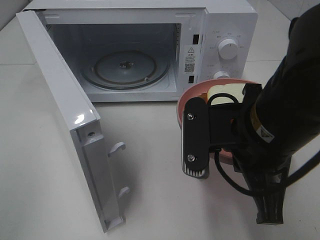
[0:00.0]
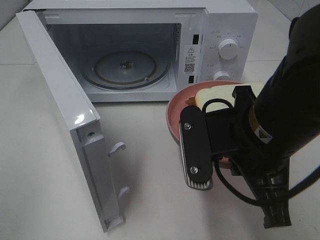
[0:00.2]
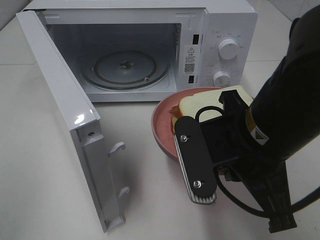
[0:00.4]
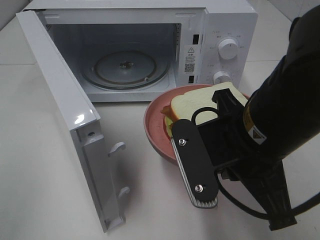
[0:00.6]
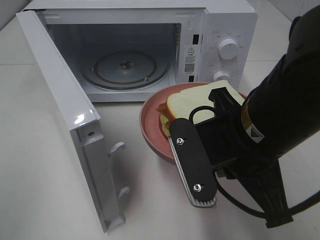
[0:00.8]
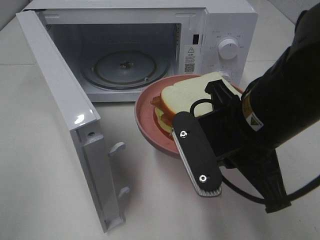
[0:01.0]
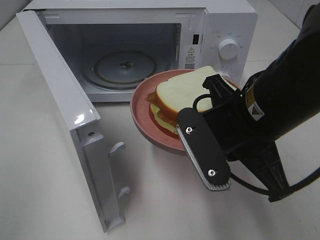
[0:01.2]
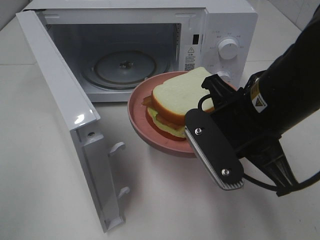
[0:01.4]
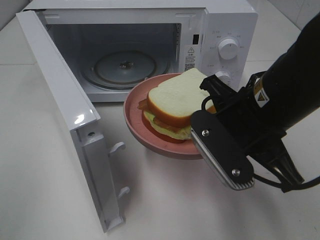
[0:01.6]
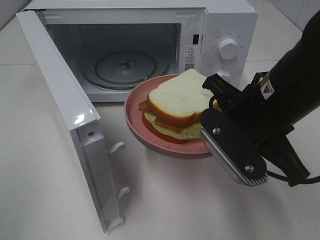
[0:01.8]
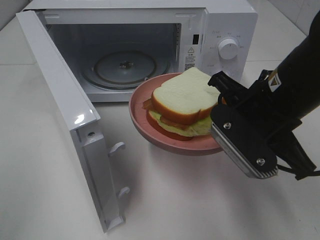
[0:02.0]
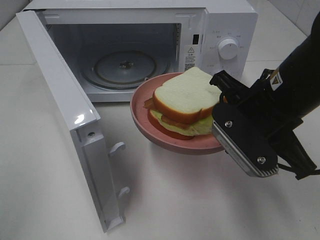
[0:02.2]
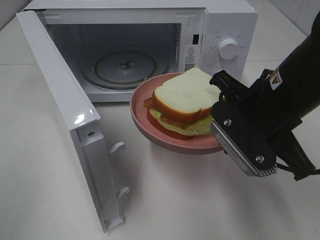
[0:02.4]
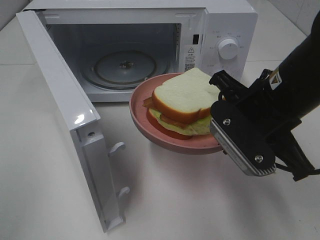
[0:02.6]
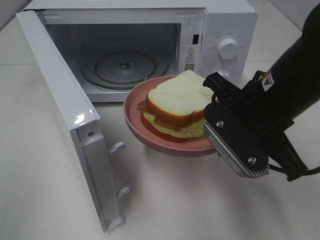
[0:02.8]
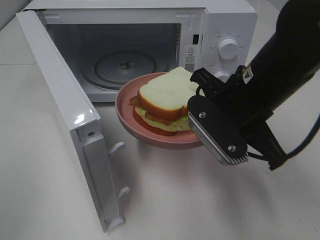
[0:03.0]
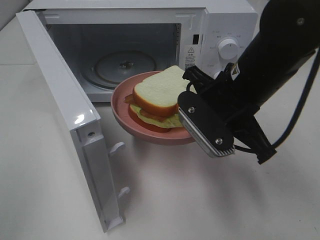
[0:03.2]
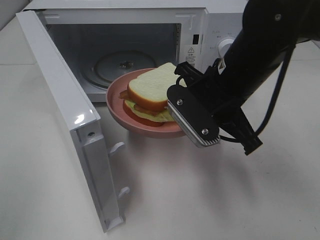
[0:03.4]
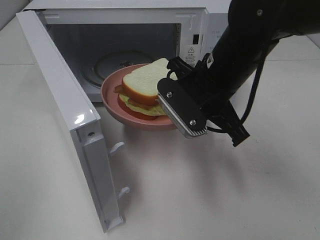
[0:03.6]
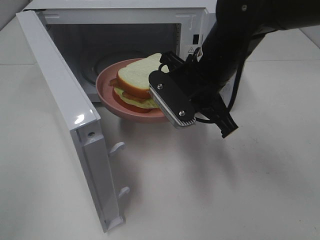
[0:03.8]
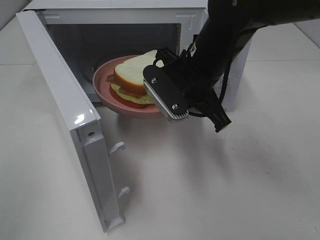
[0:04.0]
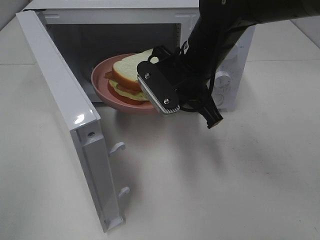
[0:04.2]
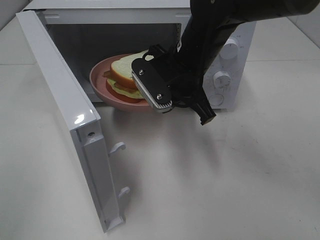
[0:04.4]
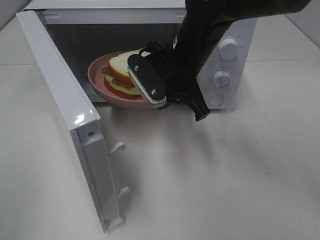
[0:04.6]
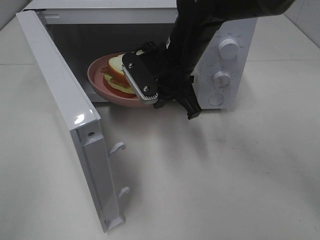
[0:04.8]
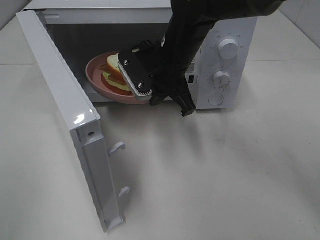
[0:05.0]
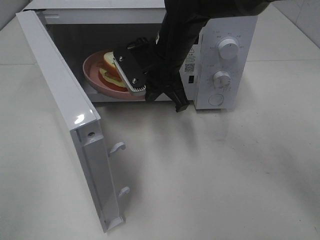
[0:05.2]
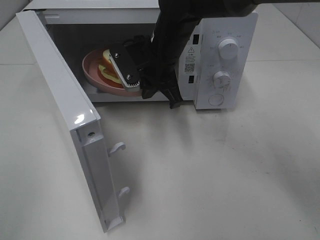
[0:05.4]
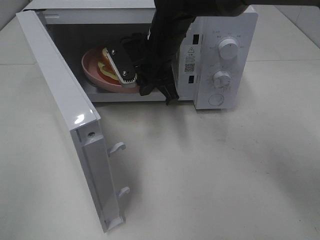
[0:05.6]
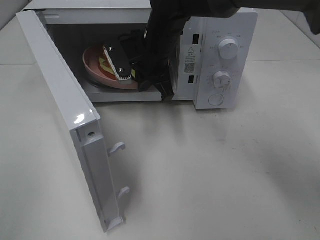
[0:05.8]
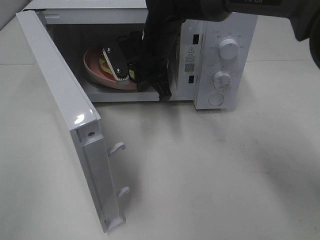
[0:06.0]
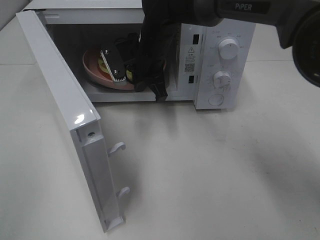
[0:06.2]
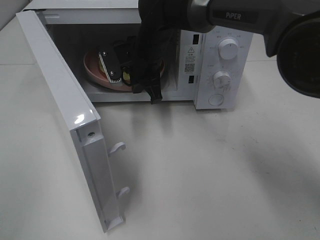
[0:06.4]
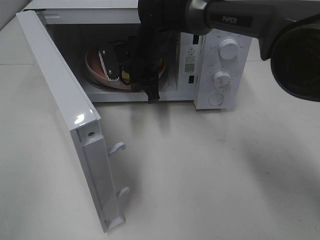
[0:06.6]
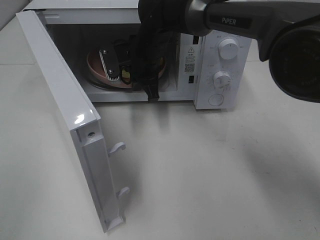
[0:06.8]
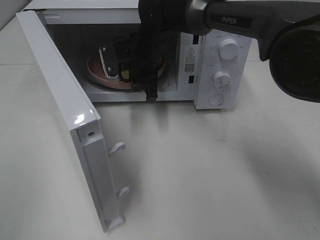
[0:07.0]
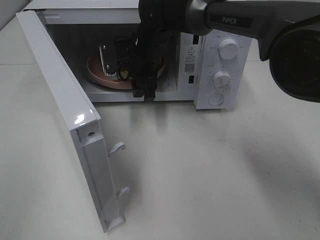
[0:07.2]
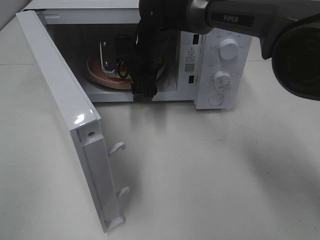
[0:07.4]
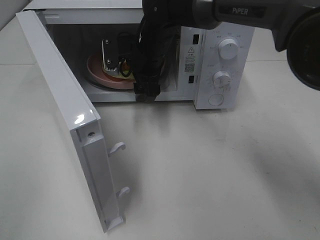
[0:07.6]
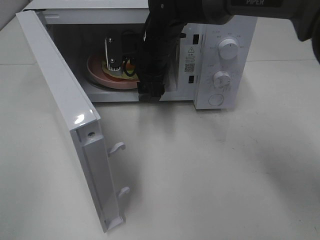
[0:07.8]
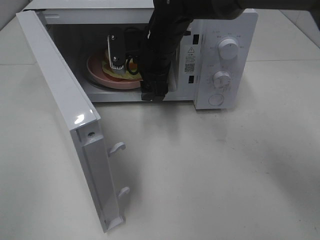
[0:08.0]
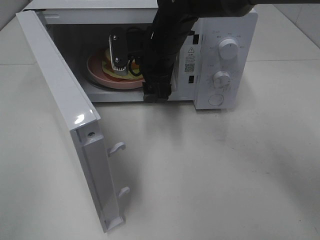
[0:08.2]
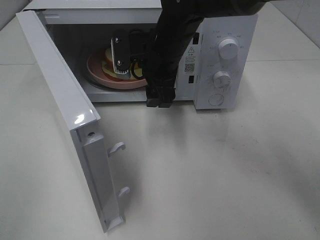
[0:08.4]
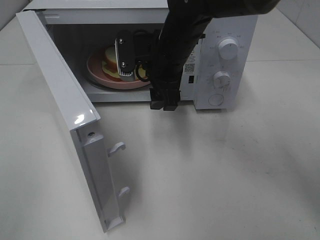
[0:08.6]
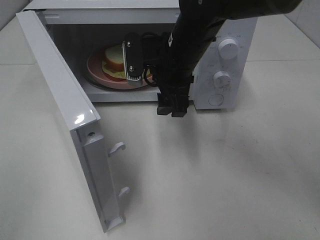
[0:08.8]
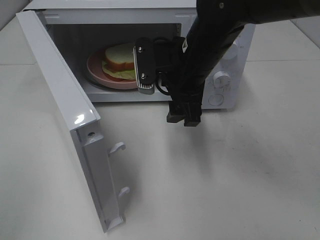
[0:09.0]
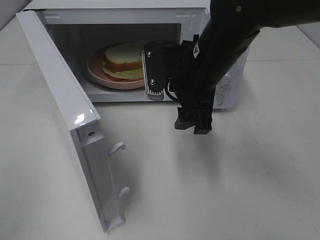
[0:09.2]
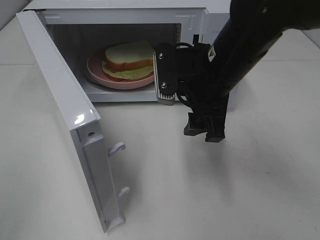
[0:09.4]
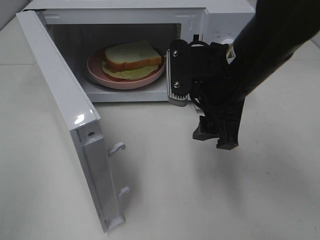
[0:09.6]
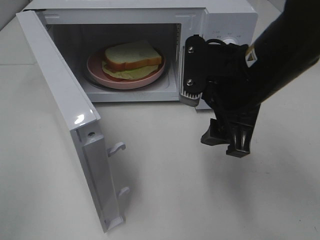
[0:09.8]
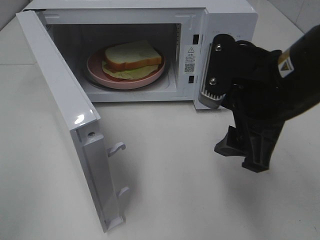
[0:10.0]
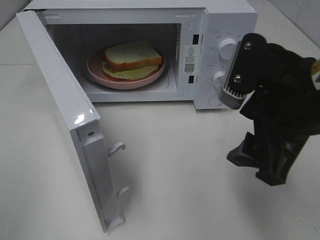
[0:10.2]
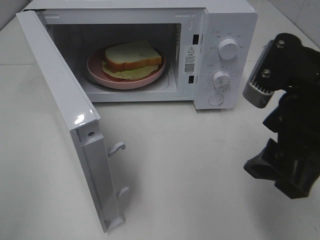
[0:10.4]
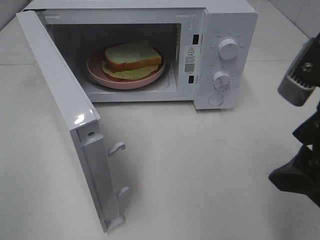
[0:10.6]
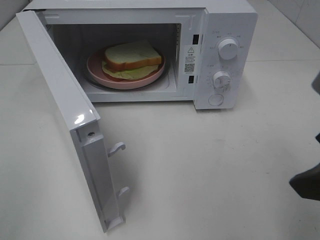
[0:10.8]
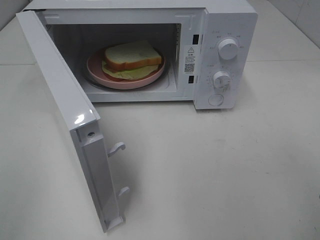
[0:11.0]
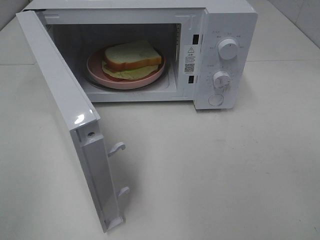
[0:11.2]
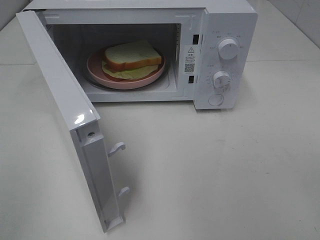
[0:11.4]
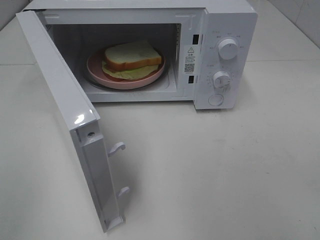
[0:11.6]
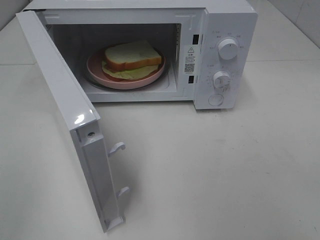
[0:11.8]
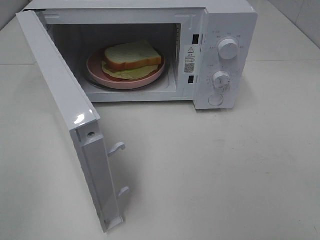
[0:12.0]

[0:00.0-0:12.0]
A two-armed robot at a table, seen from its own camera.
Task of the whole recording: Heat Sandwich.
Step, 0:00.0 to 0:07.4: Right hand: place the plate in the microwave.
0:01.6 to 0:03.0: The grippers make only small movements.
0:03.0 to 0:04.4: The right gripper goes about 10 cm forward and to the left.
0:04.4 to 0:06.0: The right gripper is displaced forward and to the left by roughly 10 cm.
0:06.0 to 0:07.6: The right gripper opens up.
0:07.6 to 0:09.0: The right gripper moves backward and to the right, some 15 cm.
0:09.0 to 0:10.4: The right gripper is displaced backward and to the right by roughly 20 cm.
0:10.4 to 0:12.0: The right gripper travels backward and to the right by roughly 15 cm.

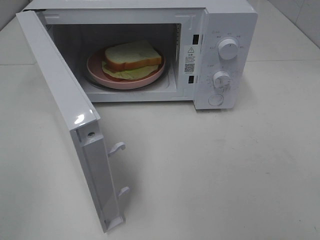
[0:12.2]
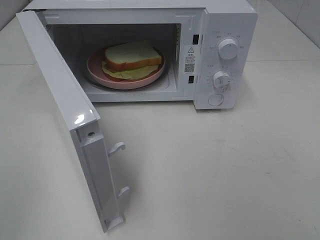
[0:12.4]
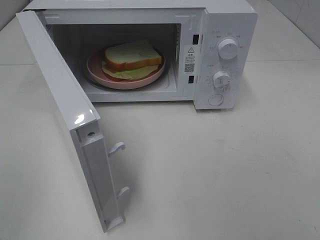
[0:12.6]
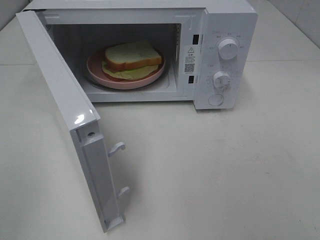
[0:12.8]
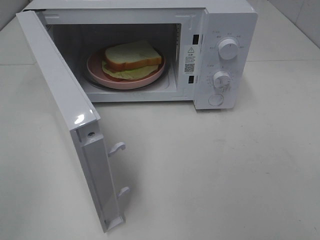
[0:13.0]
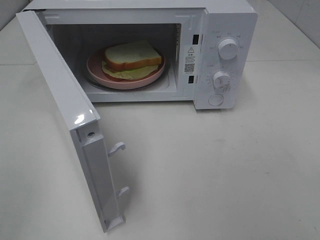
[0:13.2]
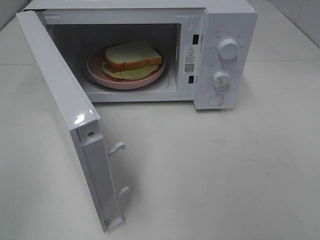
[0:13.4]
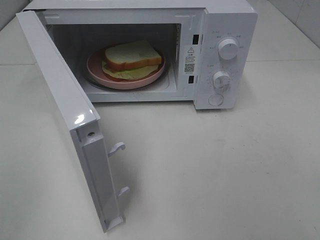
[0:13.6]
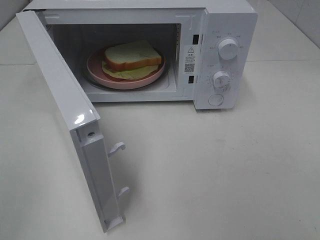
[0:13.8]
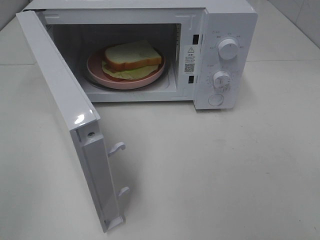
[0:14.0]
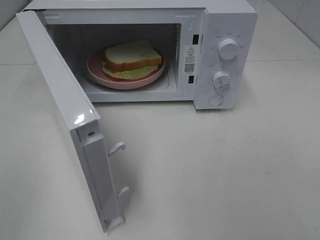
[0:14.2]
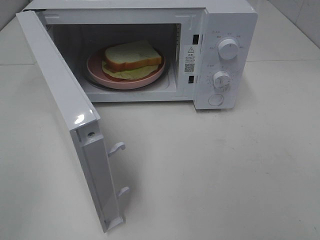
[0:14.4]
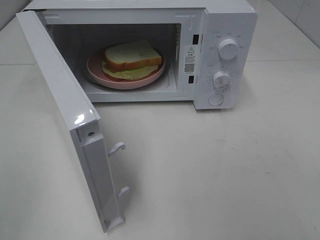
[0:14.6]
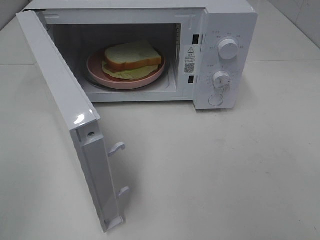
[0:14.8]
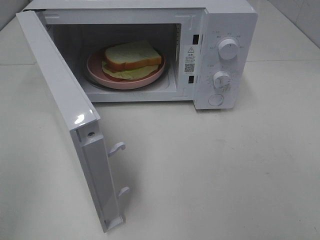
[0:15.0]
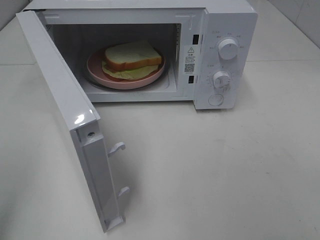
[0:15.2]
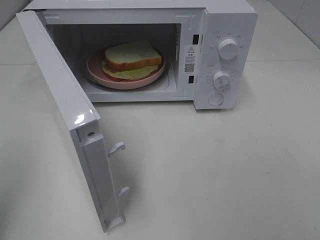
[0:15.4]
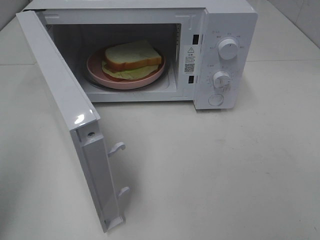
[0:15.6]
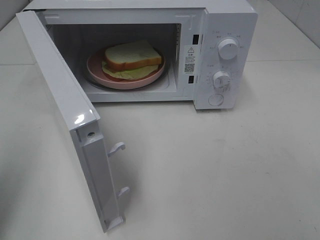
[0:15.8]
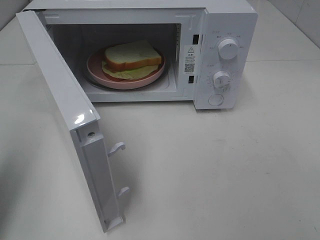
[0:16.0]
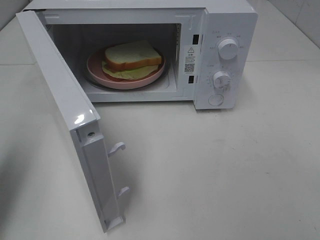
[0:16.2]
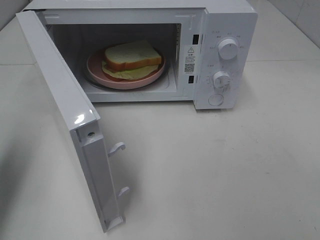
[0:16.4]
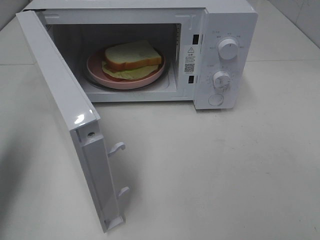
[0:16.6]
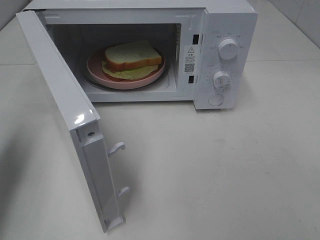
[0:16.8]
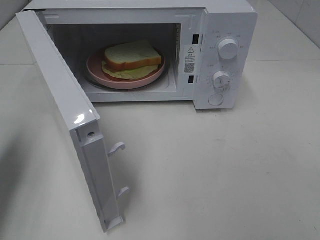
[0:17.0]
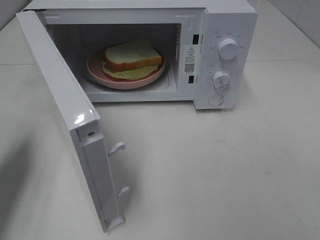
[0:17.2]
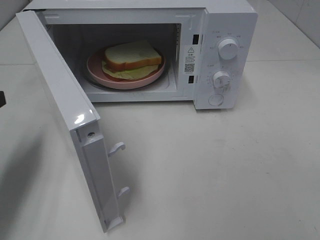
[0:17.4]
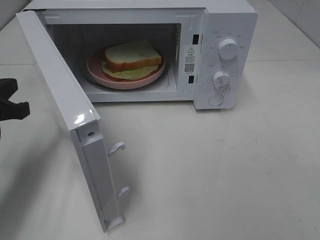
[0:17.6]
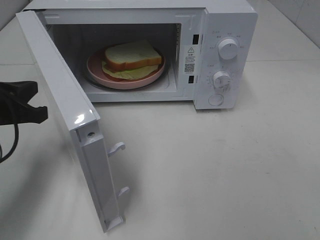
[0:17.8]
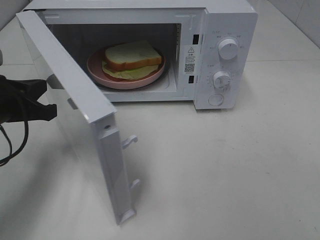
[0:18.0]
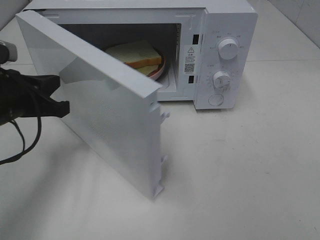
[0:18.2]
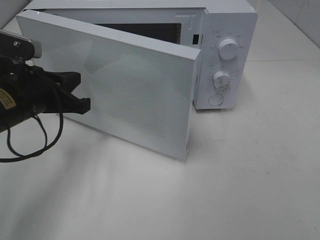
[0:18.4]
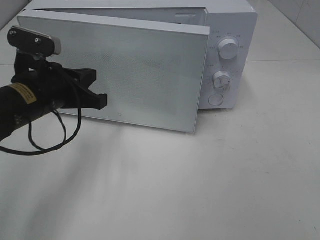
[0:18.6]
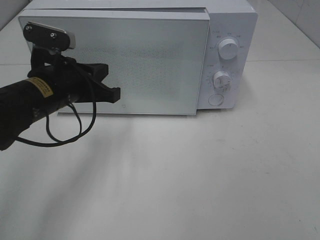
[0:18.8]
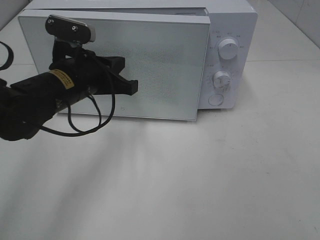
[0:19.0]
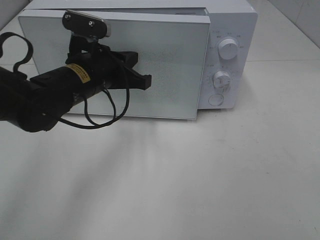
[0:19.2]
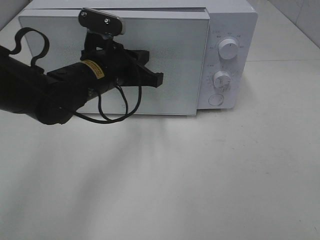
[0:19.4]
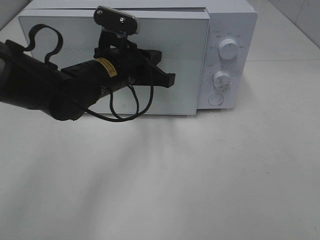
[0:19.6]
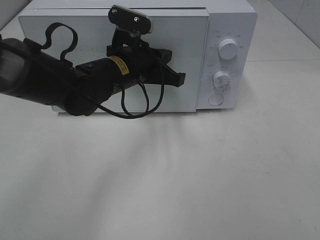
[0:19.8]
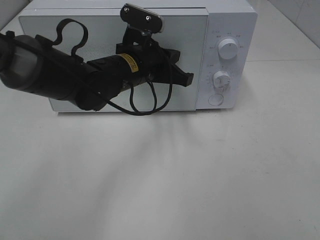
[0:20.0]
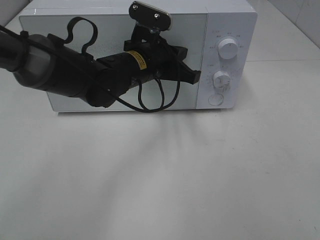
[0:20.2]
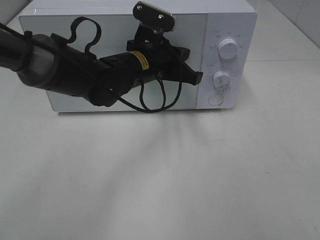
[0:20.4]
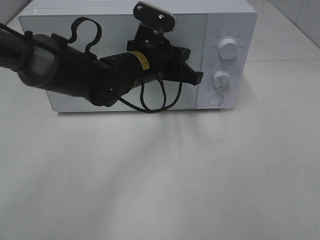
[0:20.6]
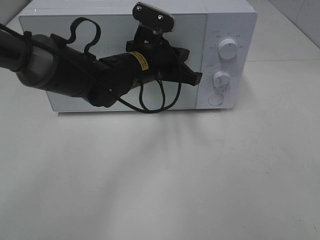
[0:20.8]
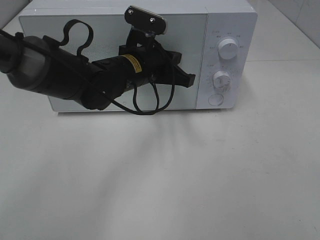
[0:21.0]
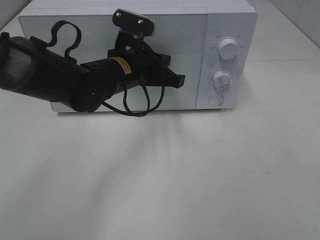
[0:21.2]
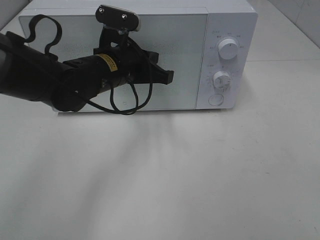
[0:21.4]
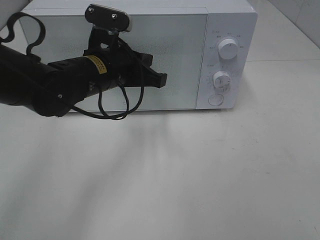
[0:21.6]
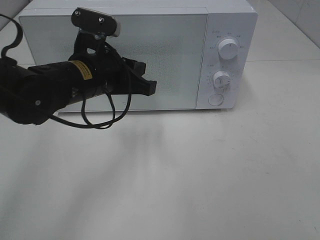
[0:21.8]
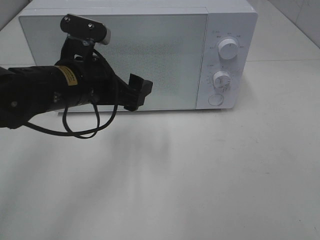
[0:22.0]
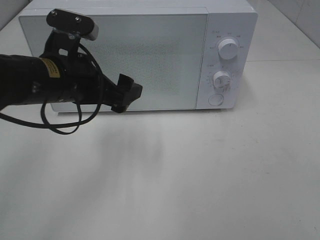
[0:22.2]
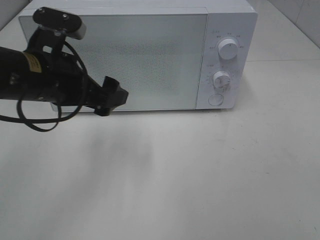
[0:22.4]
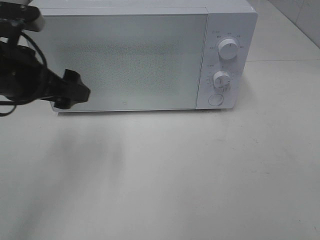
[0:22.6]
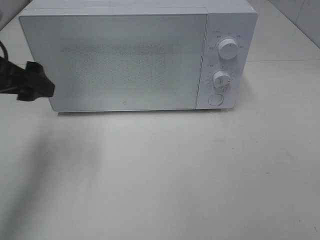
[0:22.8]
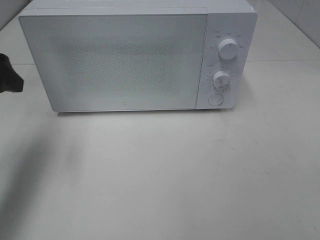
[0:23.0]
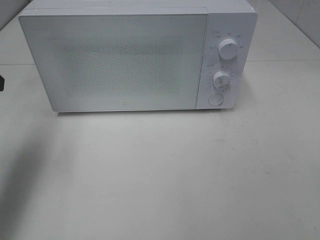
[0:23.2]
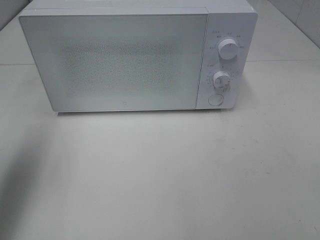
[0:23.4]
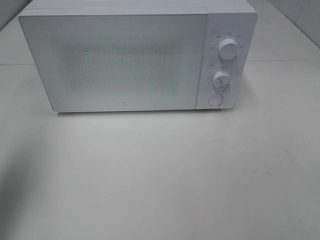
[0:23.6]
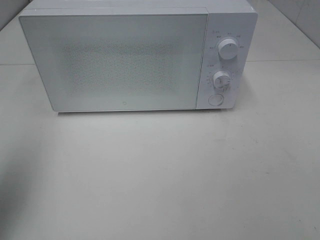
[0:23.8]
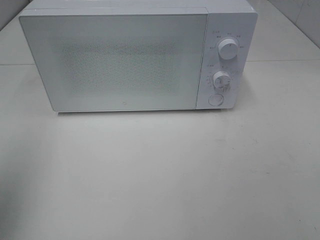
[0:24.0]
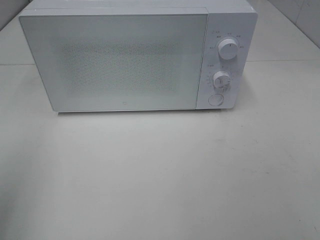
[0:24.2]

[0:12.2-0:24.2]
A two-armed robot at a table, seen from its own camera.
Task of the whole recording: Heat Sandwich.
Step, 0:12.2 to 0:21.6: Left hand: close the microwave door.
0:15.2 to 0:16.6: The left gripper moves forward, some 15 cm, and closes.
0:16.6 to 0:18.2: The left gripper goes approximately 15 cm to the right, downward and forward.
0:18.2 to 0:19.8: The left gripper travels to the right and forward by some 20 cm.
0:19.8 to 0:21.2: The grippers make only small movements.
0:21.2 to 0:22.6: The left gripper goes roughly 20 cm to the left, backward and upward, and opens its fingers.
0:22.6 to 0:24.2: The left gripper moves backward and to the left, approximately 20 cm.
